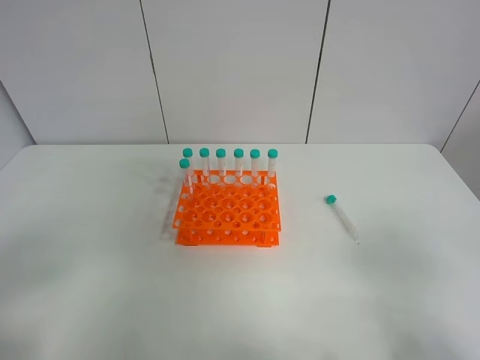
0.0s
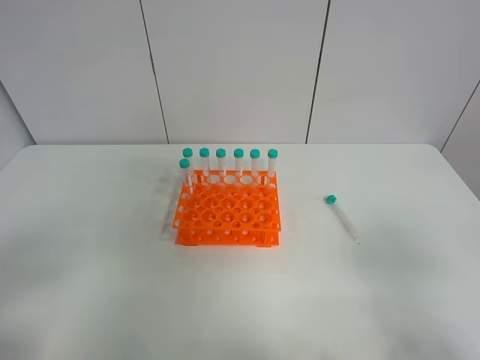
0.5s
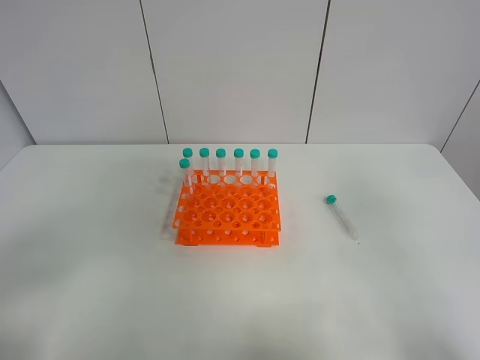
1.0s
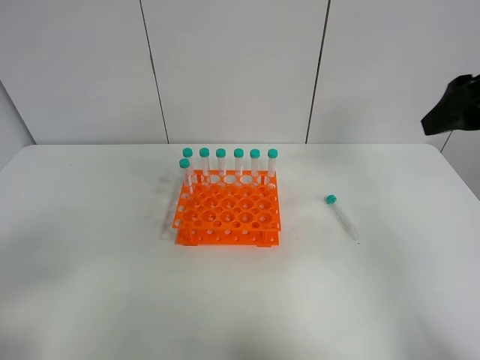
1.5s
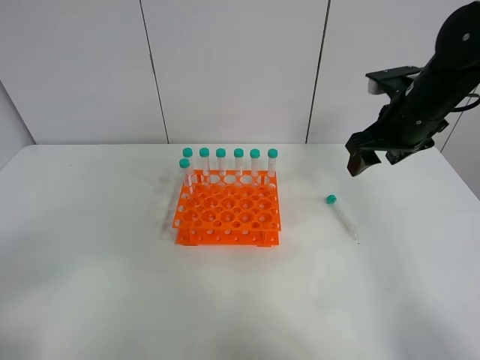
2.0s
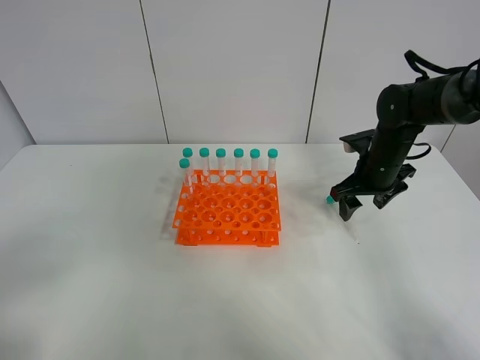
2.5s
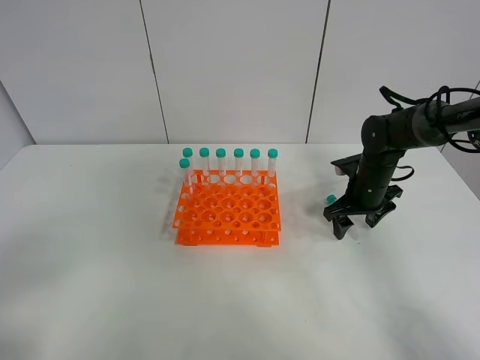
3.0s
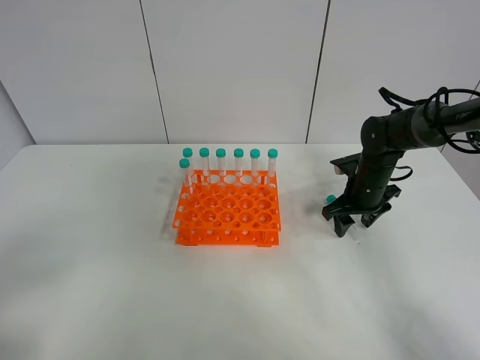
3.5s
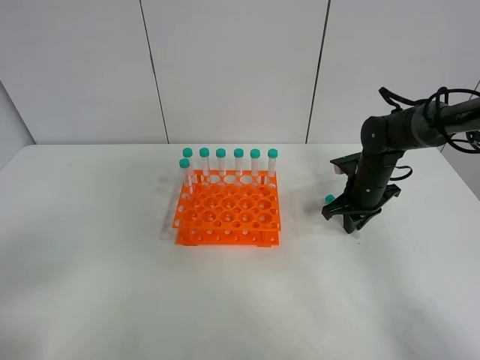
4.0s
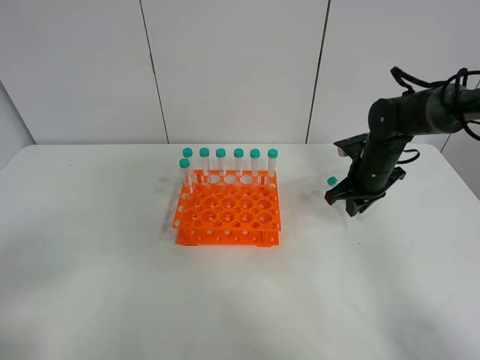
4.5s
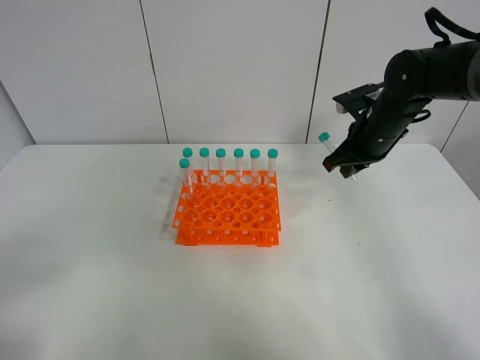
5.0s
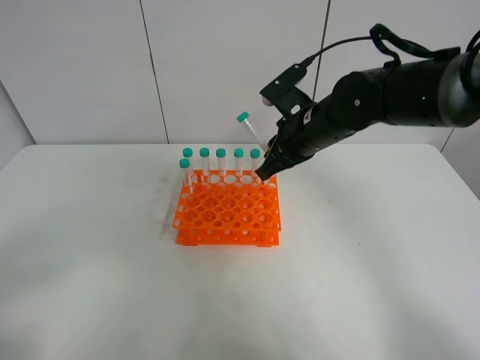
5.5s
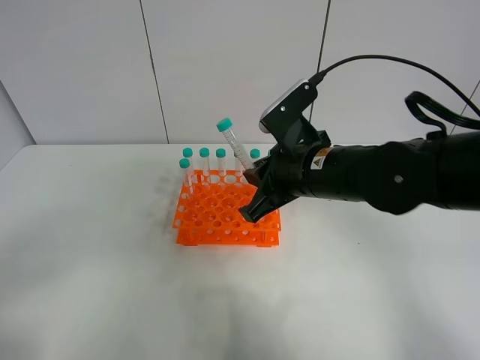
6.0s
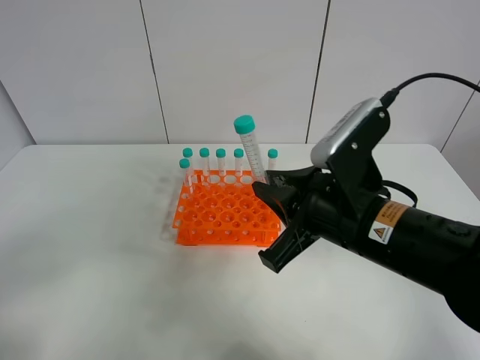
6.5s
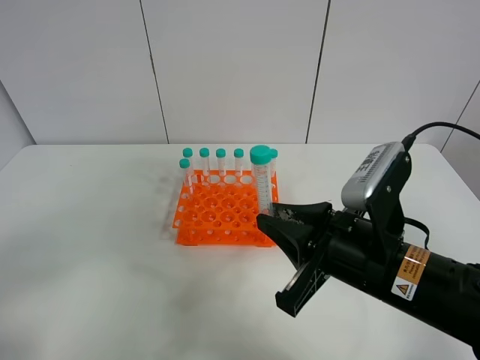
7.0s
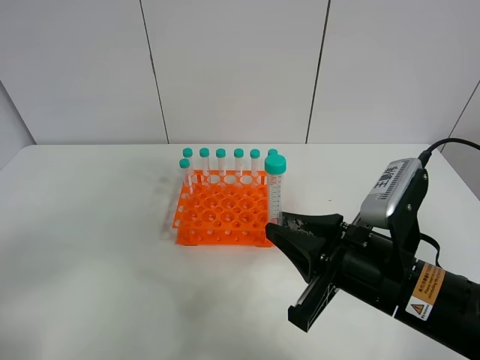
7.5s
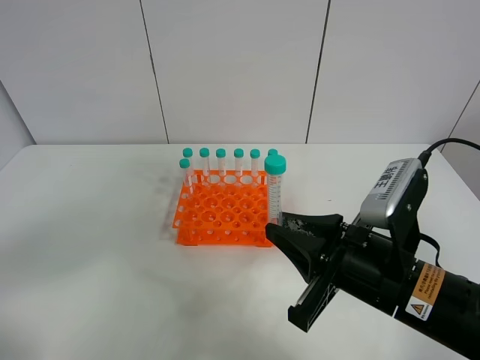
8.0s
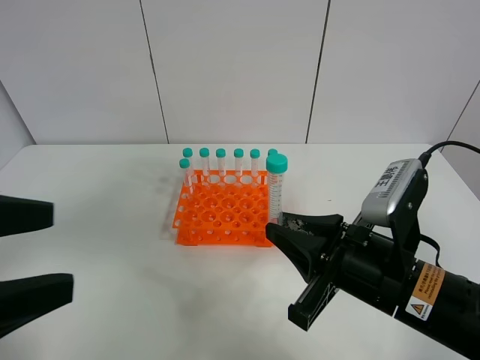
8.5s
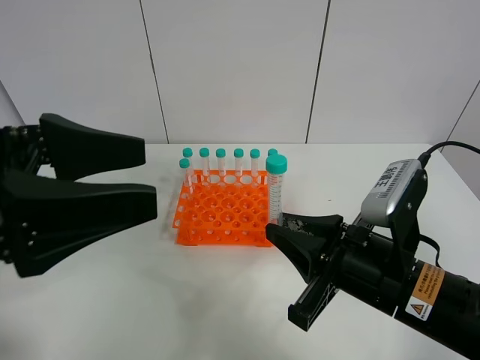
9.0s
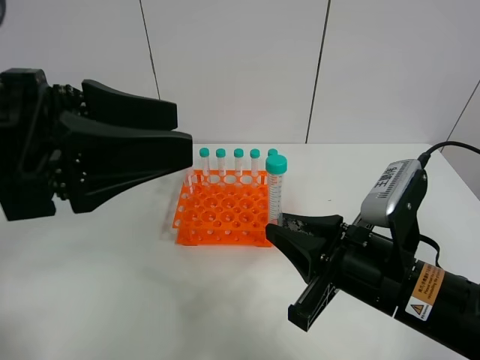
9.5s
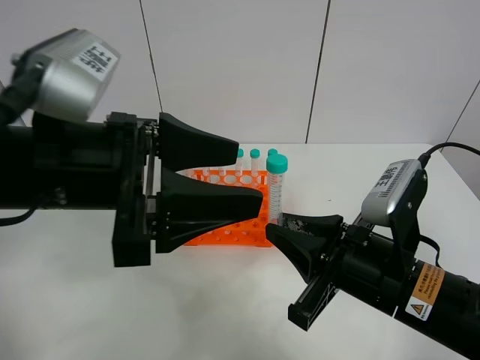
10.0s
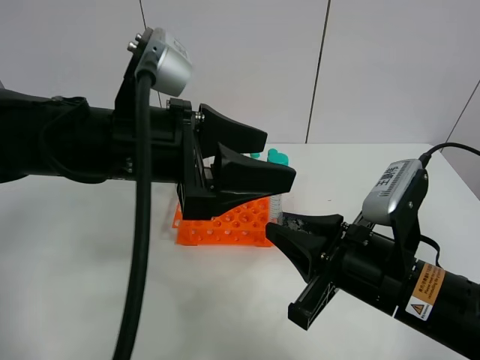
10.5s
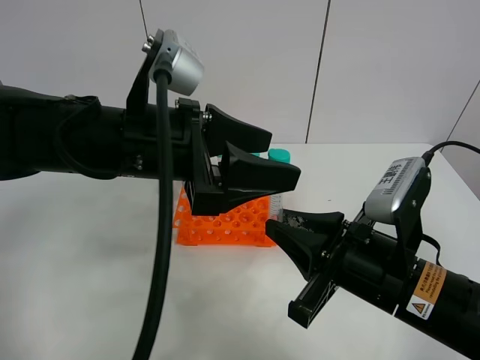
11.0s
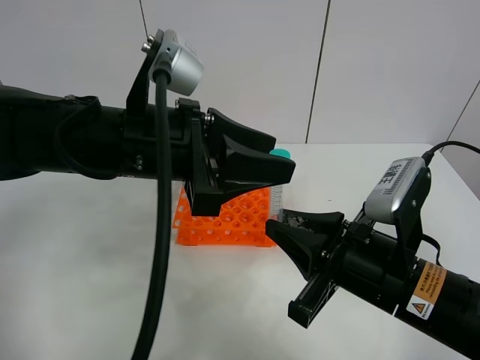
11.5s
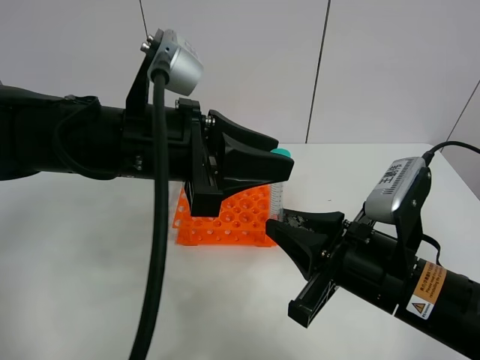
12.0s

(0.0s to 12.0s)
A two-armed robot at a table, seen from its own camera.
Task of the whole recording: Put the test tube on the table back onto the test tube rack.
Step, 0.0s - 4.5s: Pick up the test tube with the right gripper.
0.0s - 2.0s: The right gripper heads forward, covering some 35 cm.
2.0s - 4.0s: The right gripper moves downward, approximately 15 cm, and closes up.
4.0s - 6.0s: The right gripper goes some 25 cm backward, to the left and upward.
6.0s - 8.0s: The right gripper goes approximately 10 cm backward and to the right.
8.0s - 10.0s: The left gripper travels forward and to the right by about 25 cm.
10.0s - 12.0s: The left gripper changes place by about 5 cm, and closes its fingers.

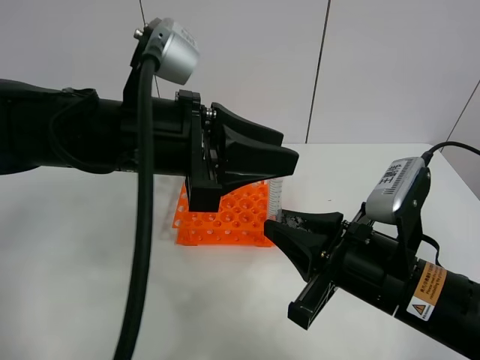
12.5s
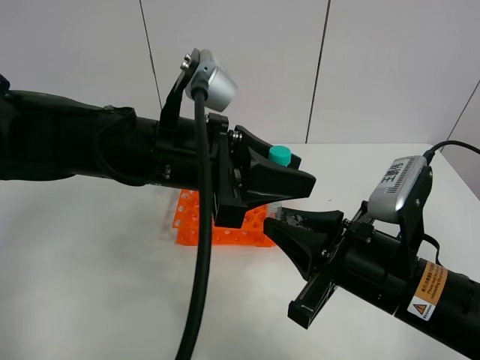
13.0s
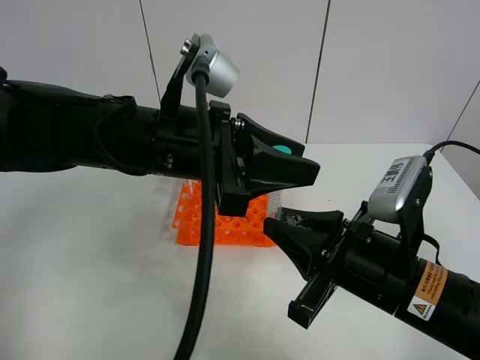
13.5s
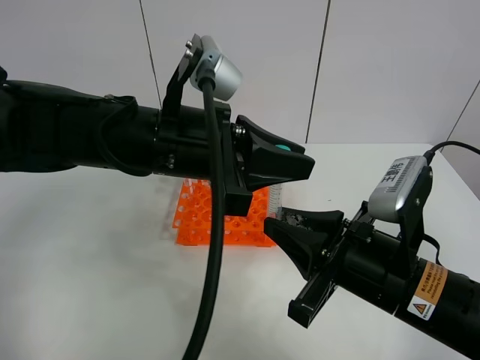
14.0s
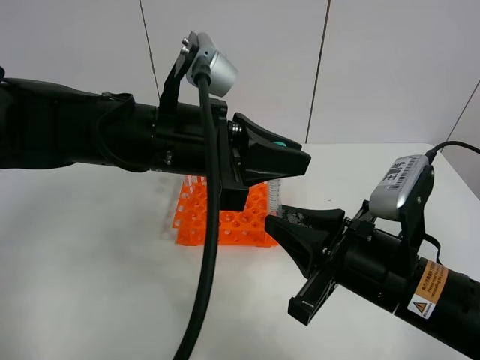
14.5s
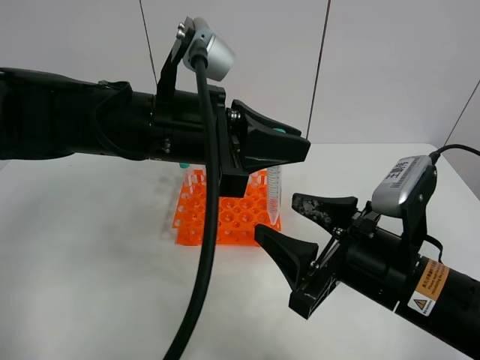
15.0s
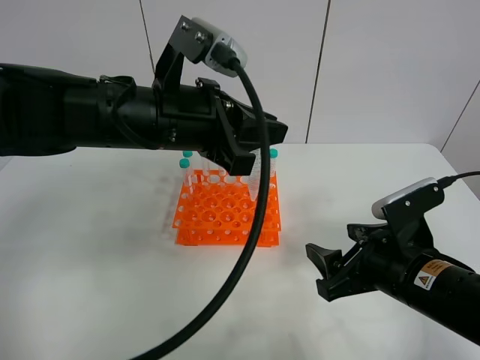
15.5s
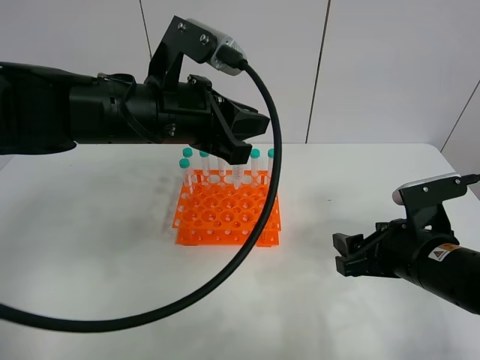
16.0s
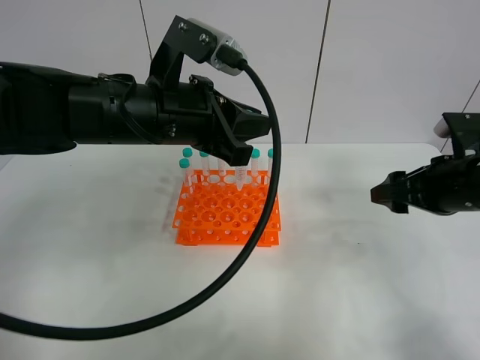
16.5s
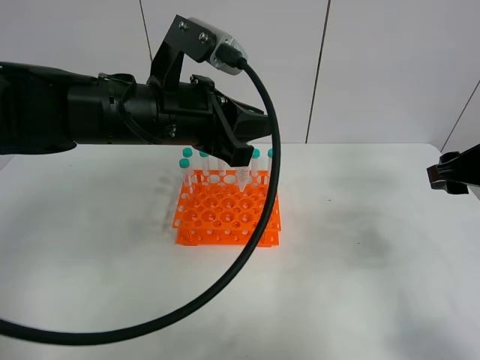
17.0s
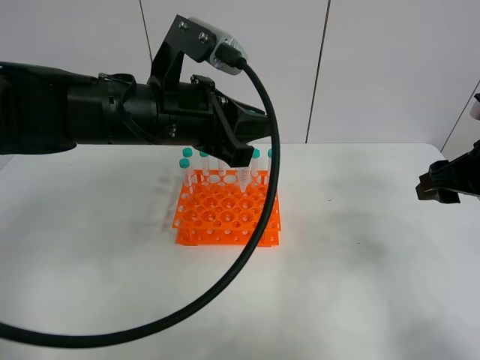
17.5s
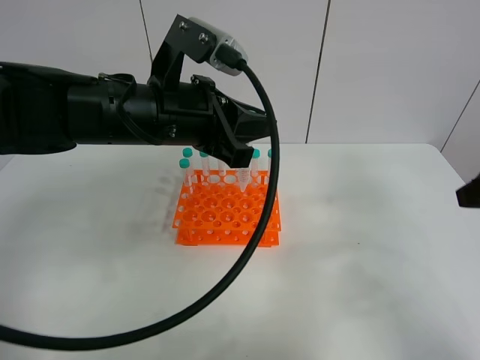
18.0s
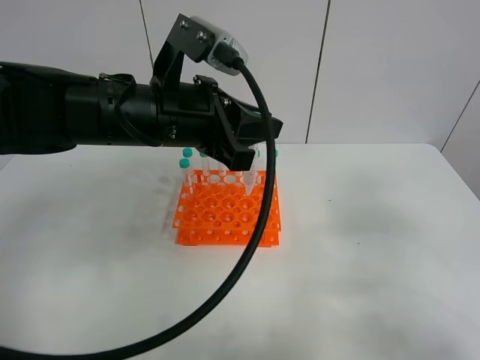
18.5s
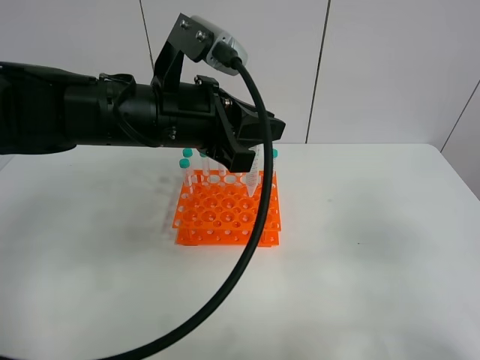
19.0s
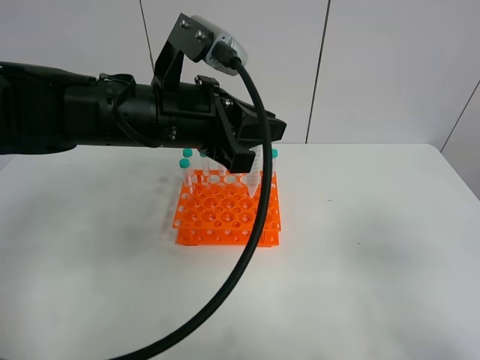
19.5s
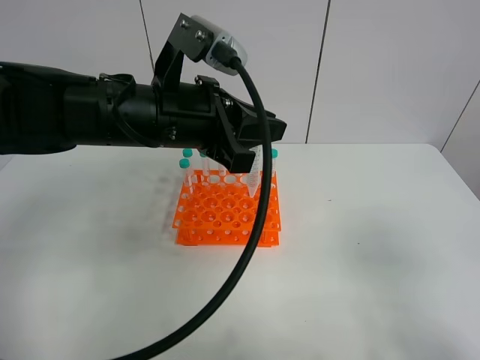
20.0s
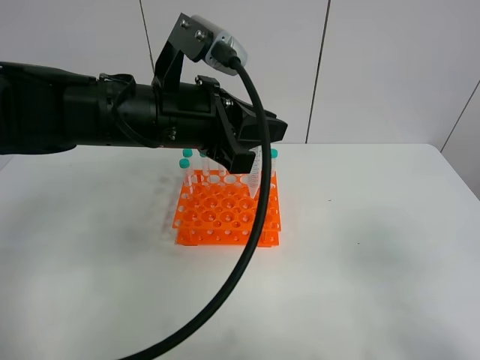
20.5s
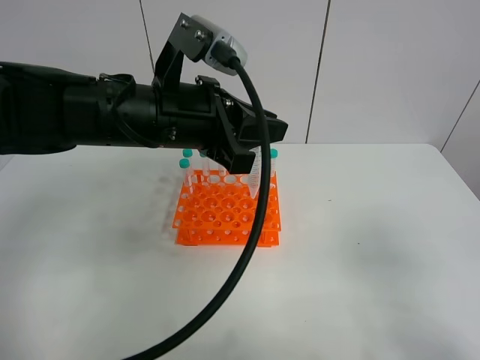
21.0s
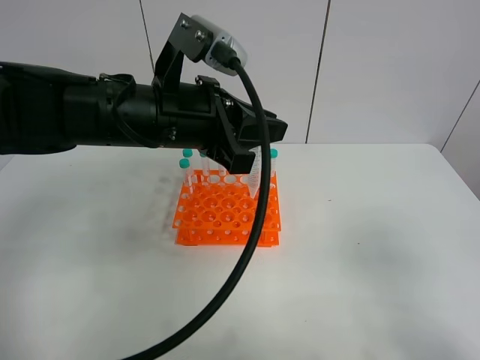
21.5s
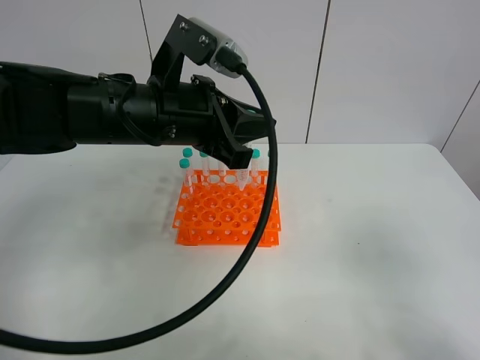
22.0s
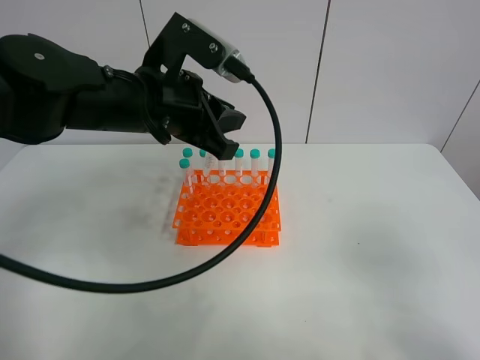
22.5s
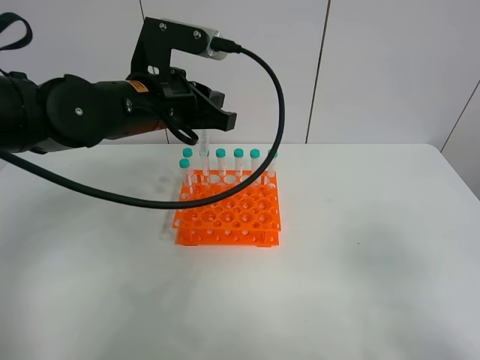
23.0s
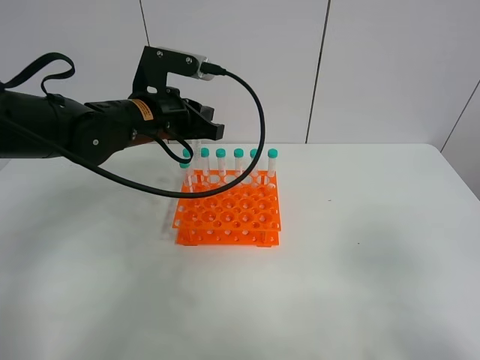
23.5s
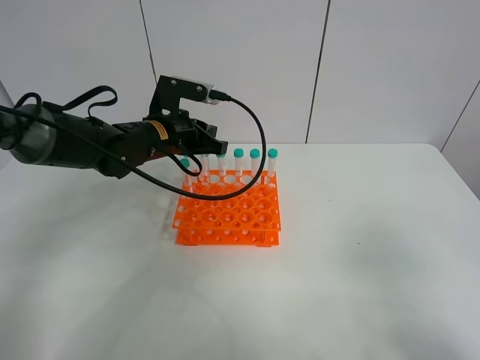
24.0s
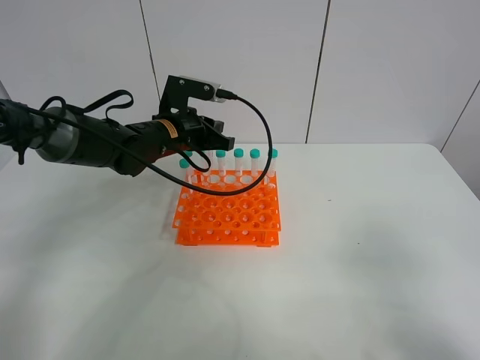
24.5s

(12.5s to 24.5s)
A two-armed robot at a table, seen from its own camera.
Task of the whole recording: Put the test tube on the table back onto the test tube rack.
Step, 12.5s - 15.0s: Move the test tube from the right gripper to the left gripper.
12.5s - 14.5s: The grippers make only small movements.
14.5s - 16.5s: The right gripper moves to the right and forward, some 15 cm, and opens up.
16.5s - 18.5s: The right gripper moves backward and upward, some 15 cm.
18.5s - 20.5s: The right gripper travels backward by some 10 cm.
22.5s - 24.5s: The left gripper goes roughly 15 cm downward and forward.

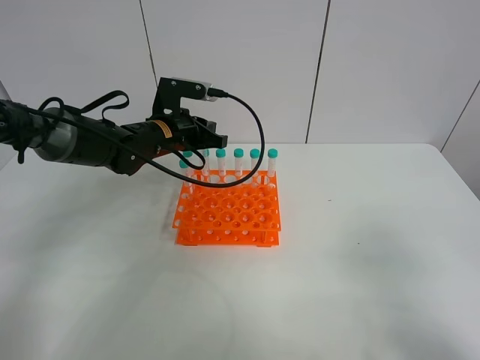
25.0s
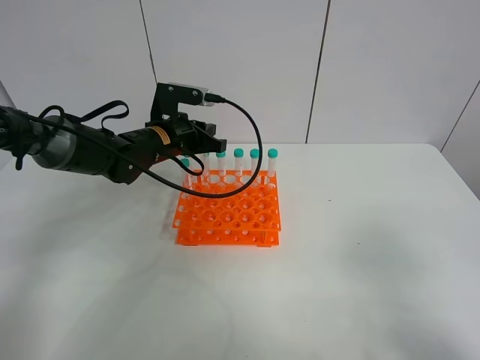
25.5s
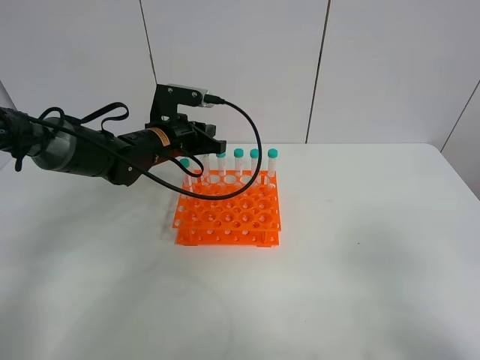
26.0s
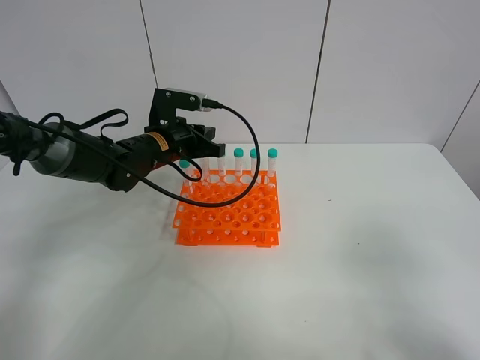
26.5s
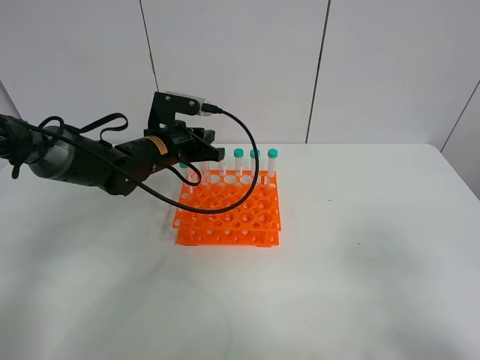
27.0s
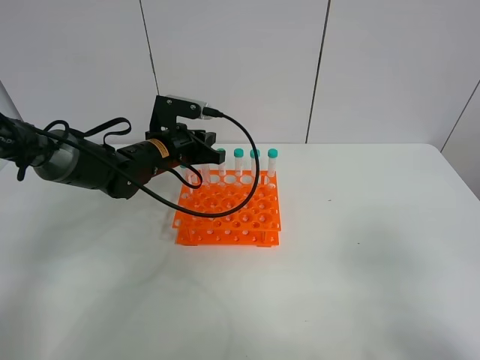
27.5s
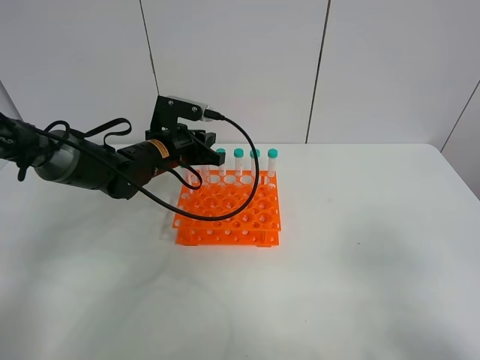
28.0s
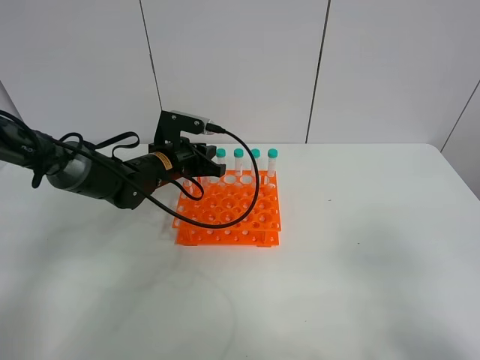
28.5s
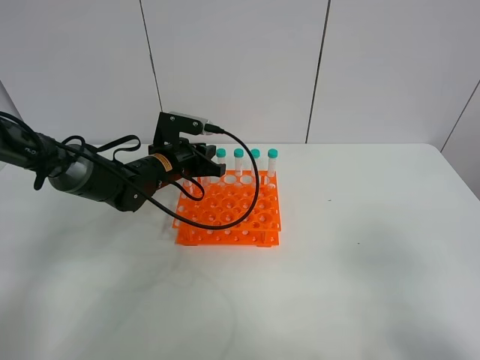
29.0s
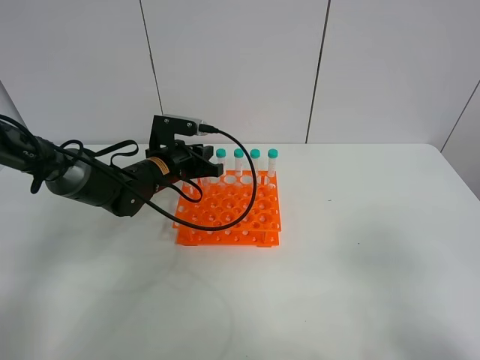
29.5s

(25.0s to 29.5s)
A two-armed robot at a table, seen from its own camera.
Task of the whole recording: Put the test tube on the table back onto the test tube rack.
25.0s - 29.5s: The grippers move only a little.
